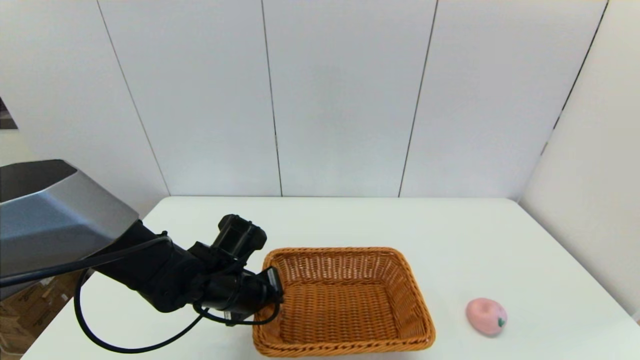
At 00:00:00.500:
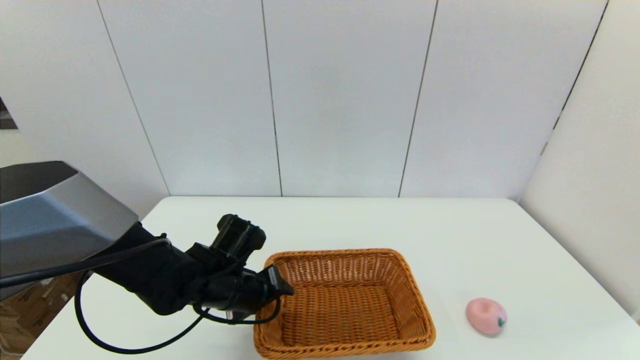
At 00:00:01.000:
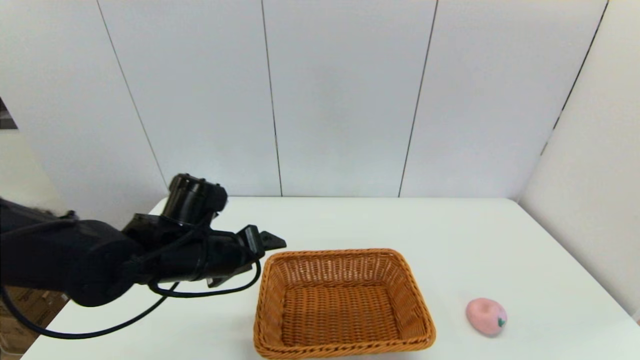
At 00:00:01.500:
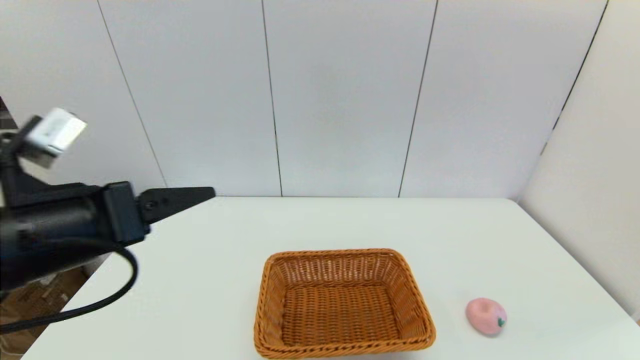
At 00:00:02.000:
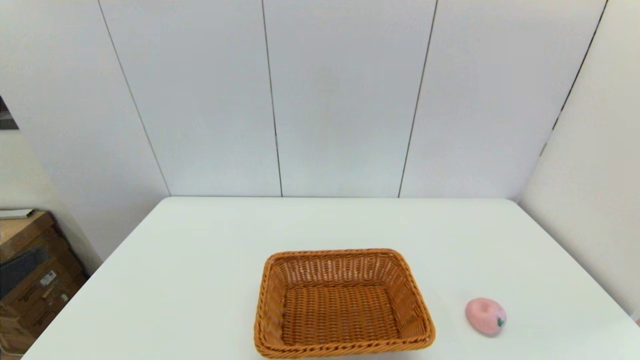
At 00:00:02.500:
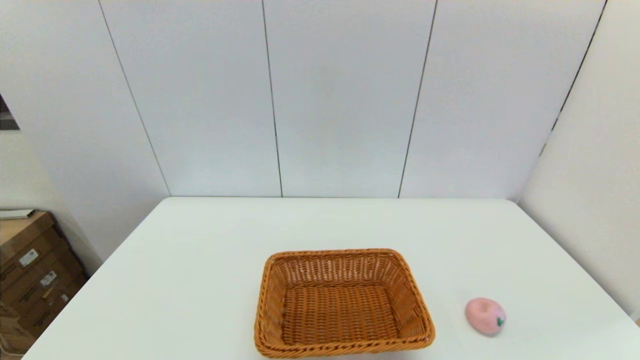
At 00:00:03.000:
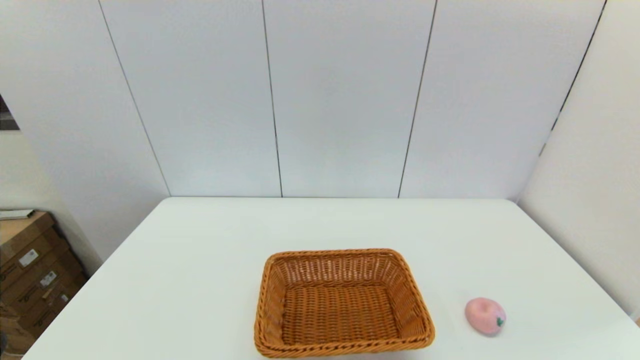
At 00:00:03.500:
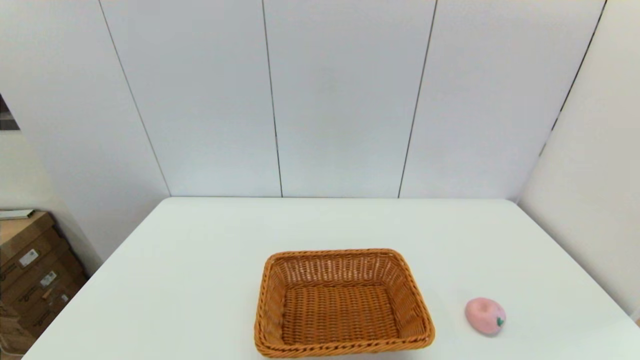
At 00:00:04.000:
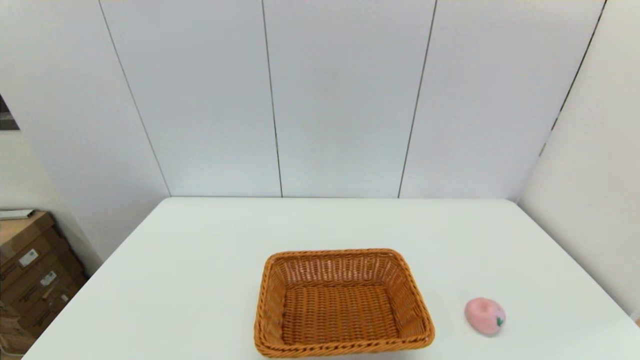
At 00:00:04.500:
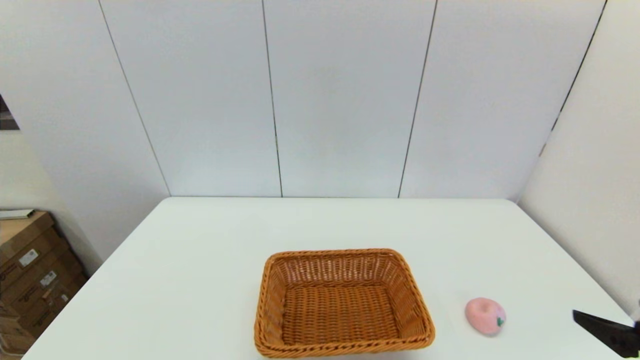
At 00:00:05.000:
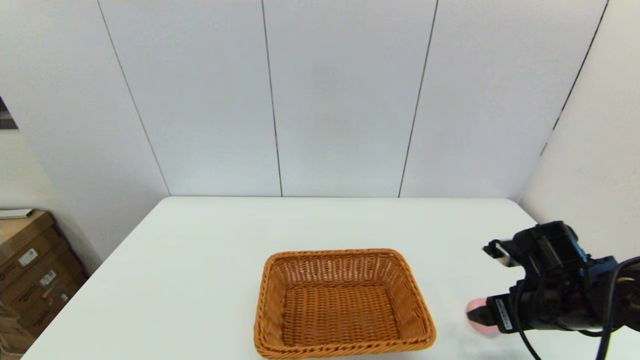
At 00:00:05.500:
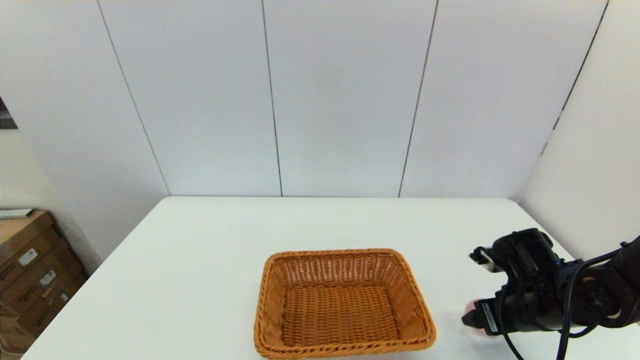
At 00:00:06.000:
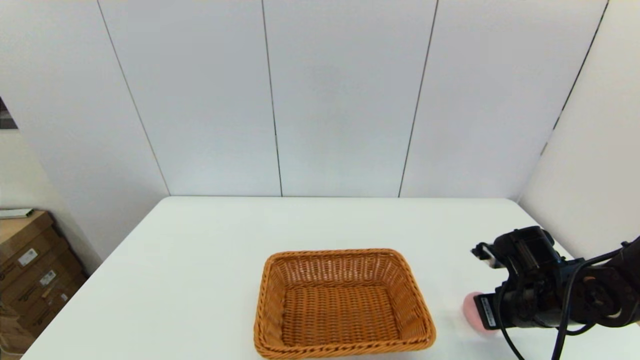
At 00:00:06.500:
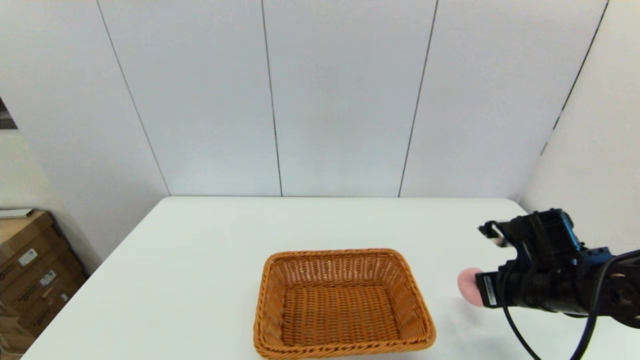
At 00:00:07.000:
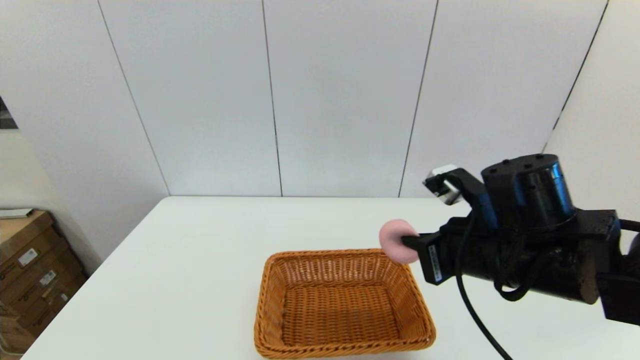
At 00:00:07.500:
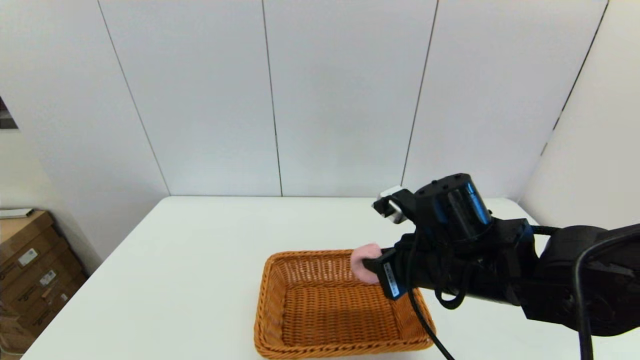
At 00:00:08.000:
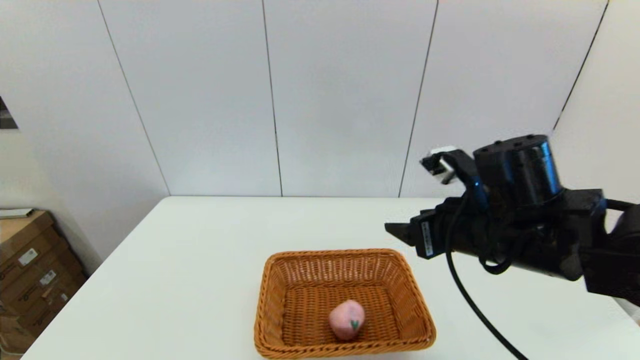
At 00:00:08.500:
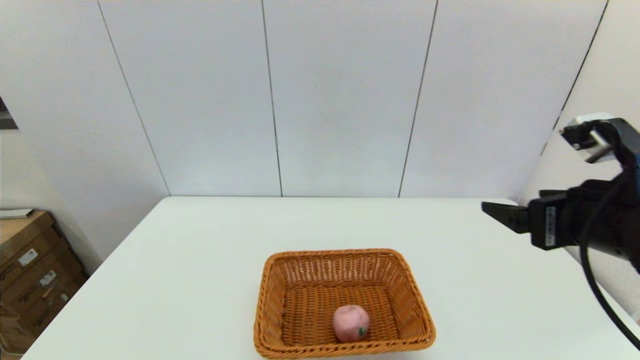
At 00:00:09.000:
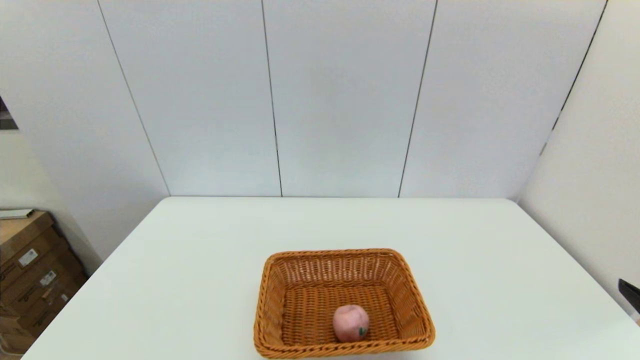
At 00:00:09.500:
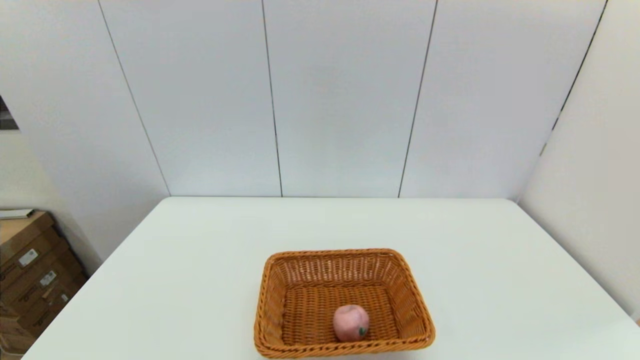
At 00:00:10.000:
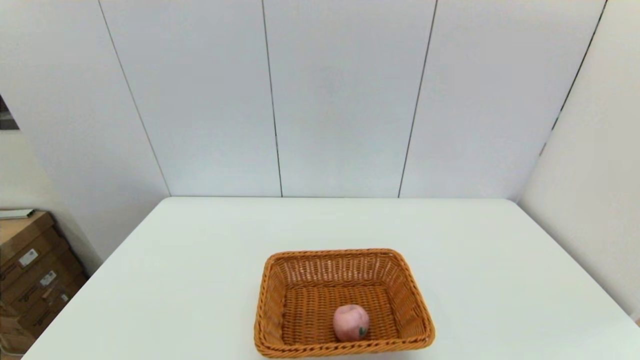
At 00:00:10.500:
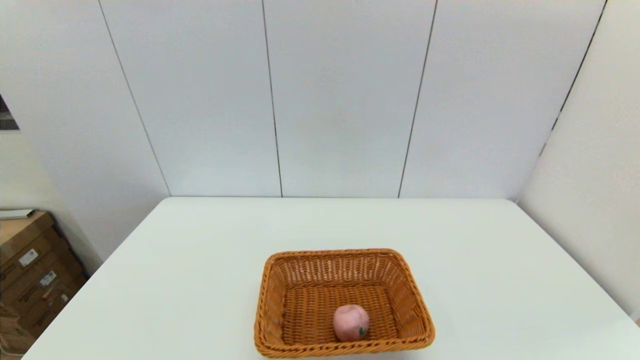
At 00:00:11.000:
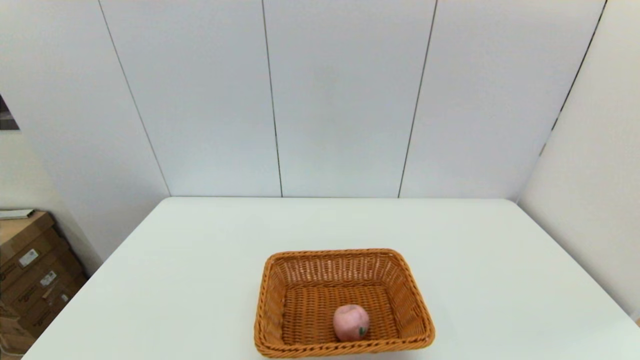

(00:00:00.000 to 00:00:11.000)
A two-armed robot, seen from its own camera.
Step, 00:00:01.000 - 00:00:06.000: Grasp the peach with the right gripper.
Step, 00:00:06.500 - 00:00:07.500: Place the peach into the light basket with the right gripper.
00:00:00.000 - 00:00:02.000: The left gripper shifts some 35 cm backward, upward and to the left, and opens.
00:00:03.500 - 00:00:05.500: The right gripper shifts about 25 cm forward.
00:00:05.500 - 00:00:07.500: The right gripper shifts about 20 cm to the left and upward, and closes its fingers.
00:00:07.500 - 00:00:09.000: The right gripper shifts about 25 cm to the right and backward, and opens.
